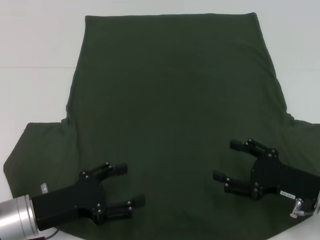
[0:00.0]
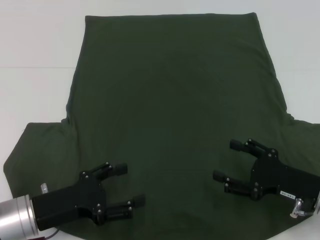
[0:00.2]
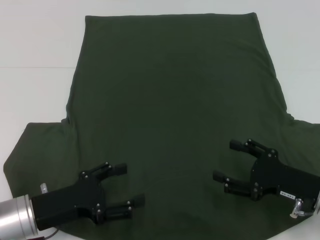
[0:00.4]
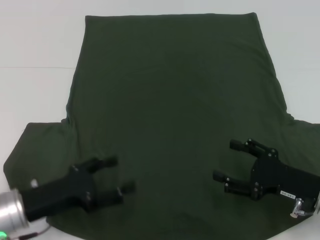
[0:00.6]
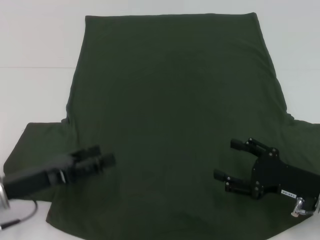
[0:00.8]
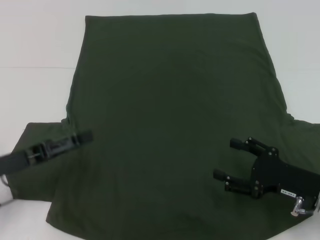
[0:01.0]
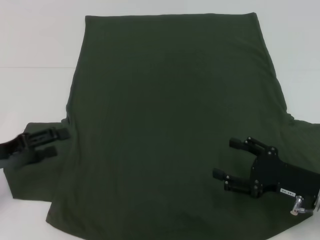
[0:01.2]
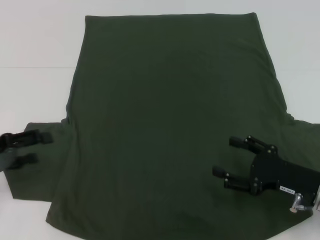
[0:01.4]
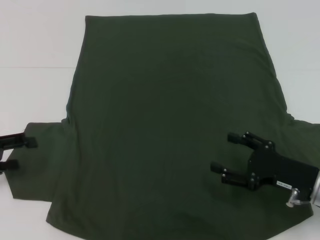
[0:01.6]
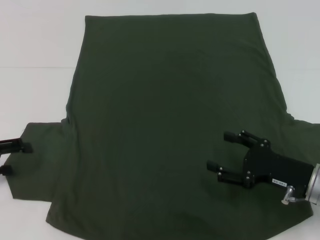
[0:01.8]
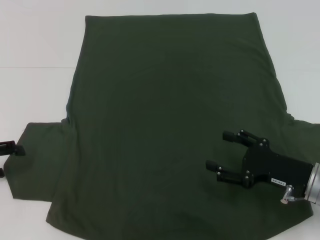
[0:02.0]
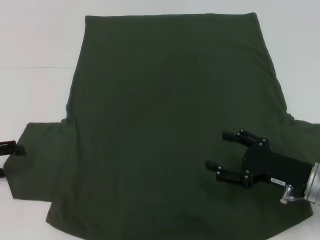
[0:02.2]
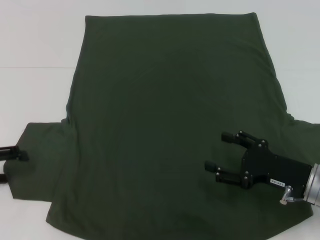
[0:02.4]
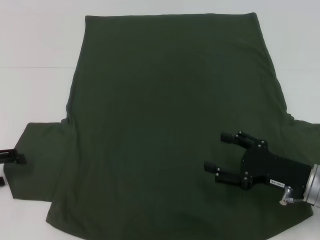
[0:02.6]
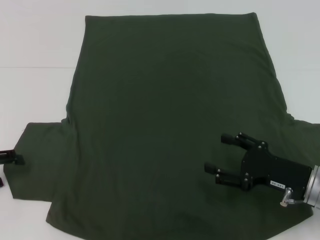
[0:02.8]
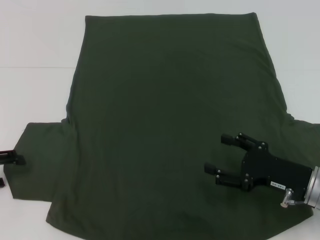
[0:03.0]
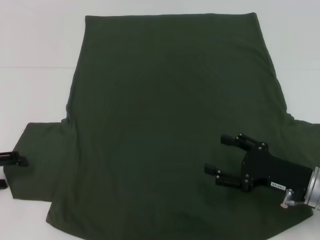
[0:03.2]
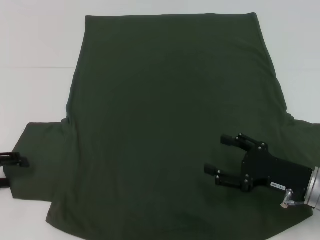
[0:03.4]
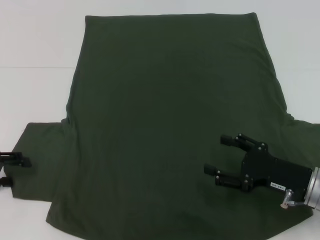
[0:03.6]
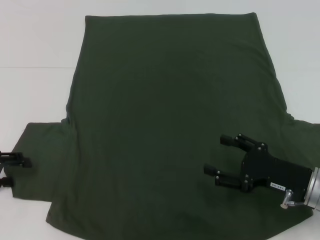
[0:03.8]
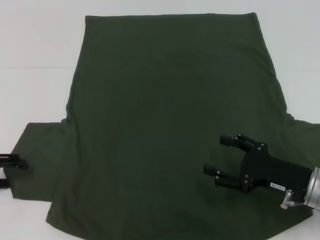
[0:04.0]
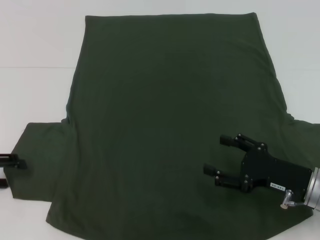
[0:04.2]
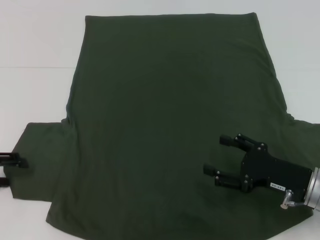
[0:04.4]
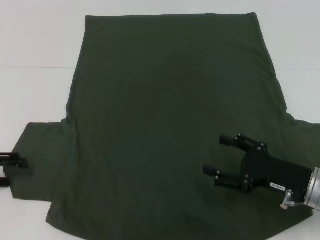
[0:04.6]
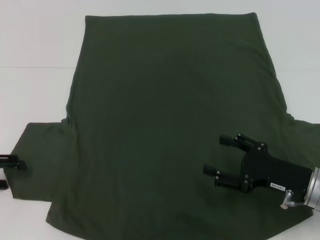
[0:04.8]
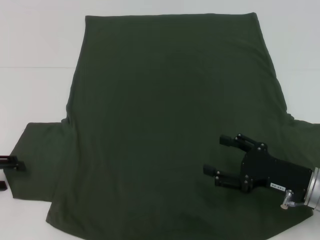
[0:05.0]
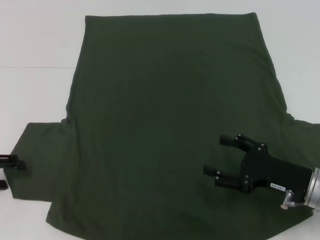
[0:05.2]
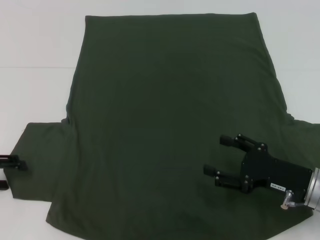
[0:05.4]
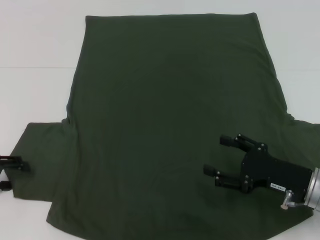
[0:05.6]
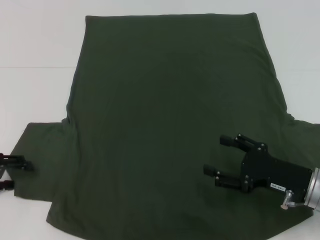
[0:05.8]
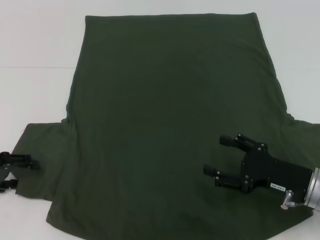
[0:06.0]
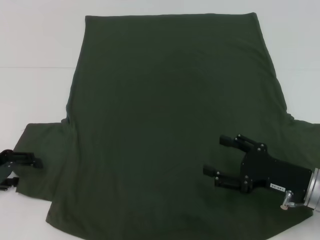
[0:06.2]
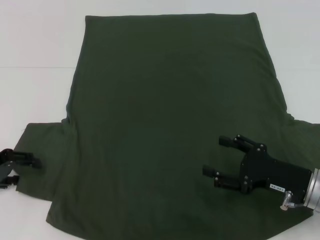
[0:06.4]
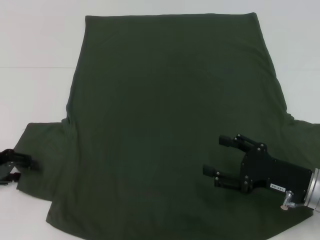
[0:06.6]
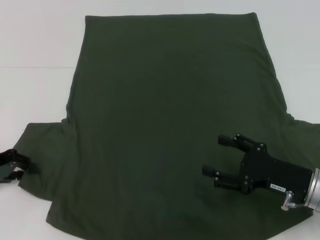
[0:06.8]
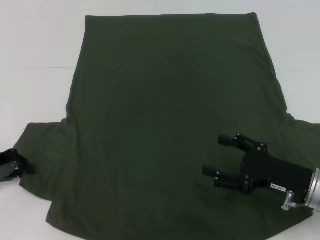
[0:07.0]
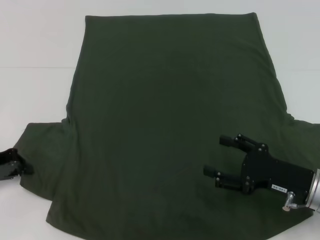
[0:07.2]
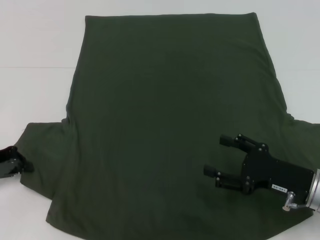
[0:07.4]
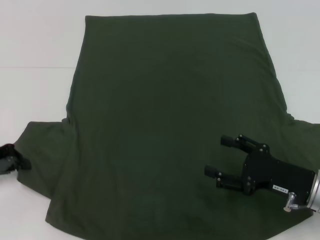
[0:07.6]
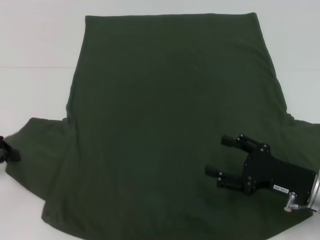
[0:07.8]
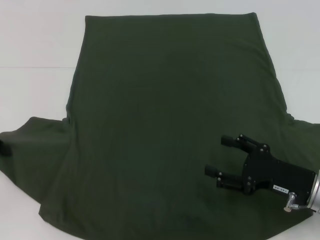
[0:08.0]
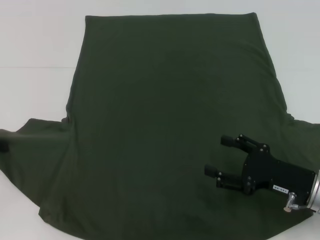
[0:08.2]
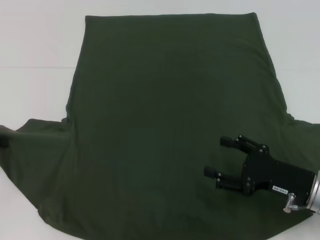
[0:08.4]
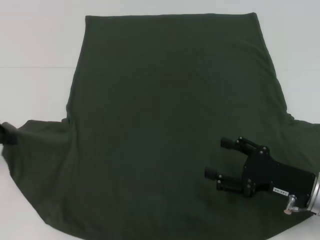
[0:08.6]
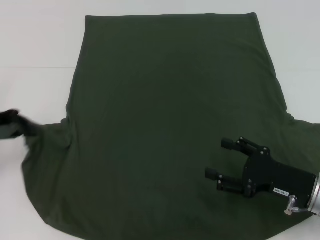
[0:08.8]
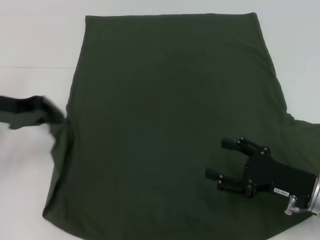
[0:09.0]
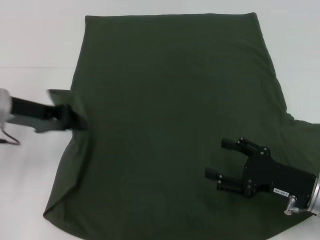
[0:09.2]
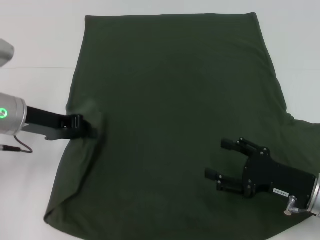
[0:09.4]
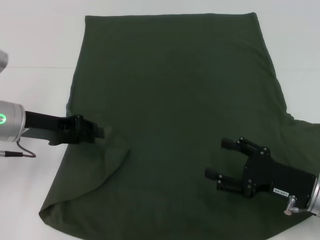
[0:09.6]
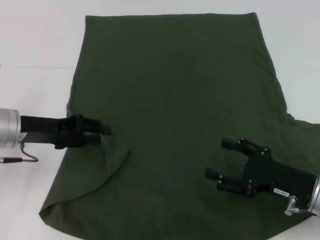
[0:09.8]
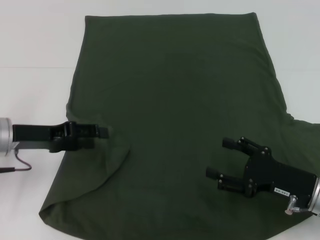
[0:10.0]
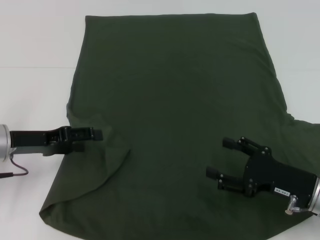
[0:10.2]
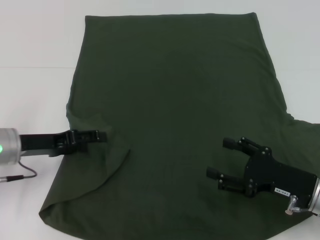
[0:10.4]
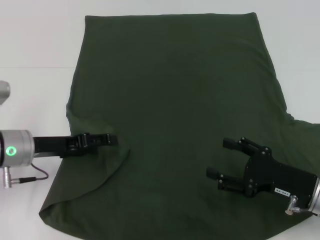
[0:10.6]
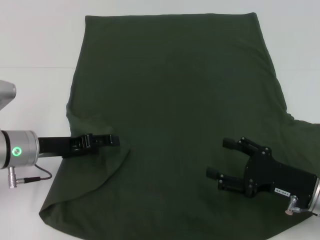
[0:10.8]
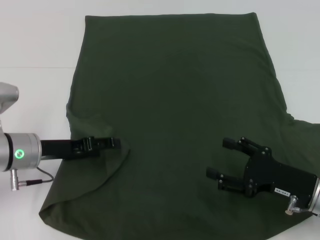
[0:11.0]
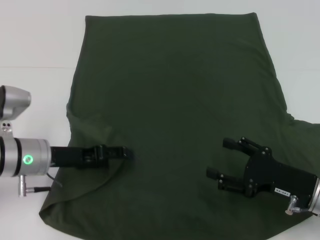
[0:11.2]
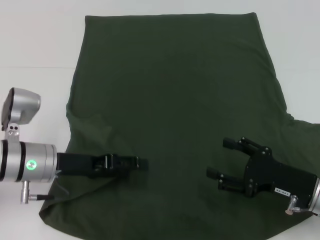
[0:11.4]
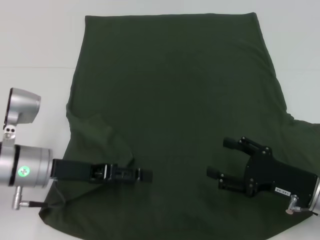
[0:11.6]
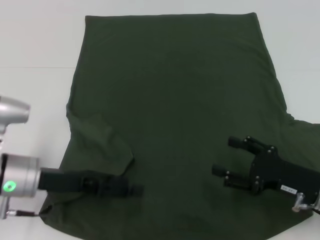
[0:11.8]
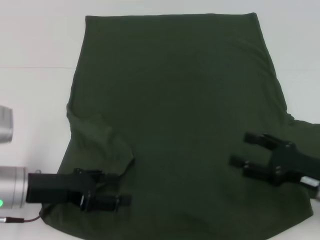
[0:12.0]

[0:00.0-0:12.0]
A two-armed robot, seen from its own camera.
0:00.0 to 0:01.6: The left gripper travels to the left and upward by approximately 15 cm.
0:01.6 to 0:03.0: The grippers stay close to where they were, moving slightly.
0:03.0 to 0:04.4: The two grippers keep their place.
0:06.0 to 0:07.6: The left gripper closes its fingers.
0:07.6 to 0:09.0: The left gripper goes approximately 10 cm upward and to the right.
0:09.0 to 0:10.4: The left gripper travels downward by roughly 10 cm, and opens.
0:10.4 to 0:12.0: The left gripper moves backward, about 5 cm.

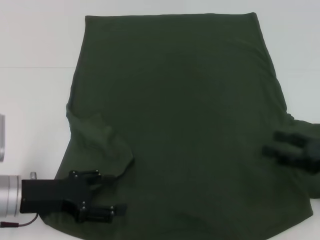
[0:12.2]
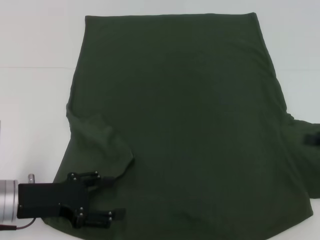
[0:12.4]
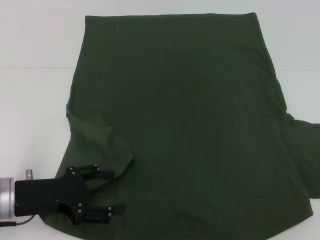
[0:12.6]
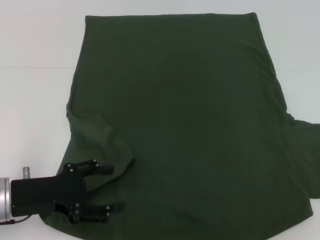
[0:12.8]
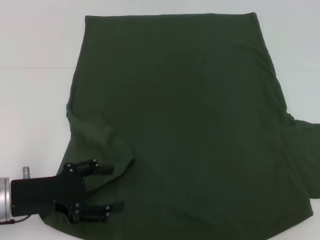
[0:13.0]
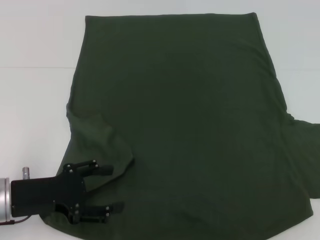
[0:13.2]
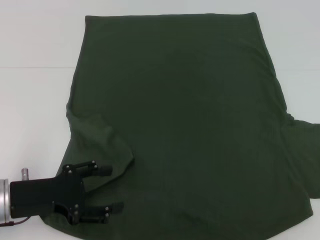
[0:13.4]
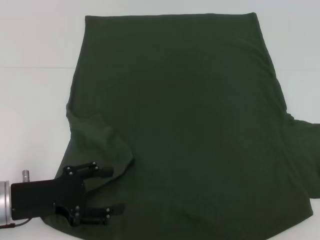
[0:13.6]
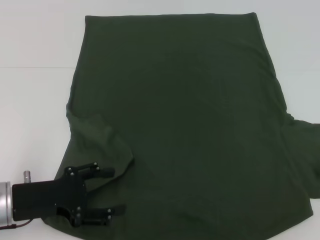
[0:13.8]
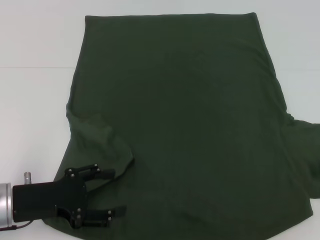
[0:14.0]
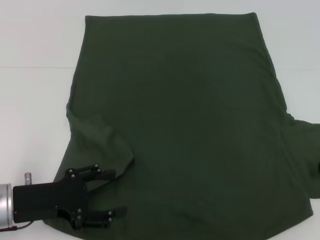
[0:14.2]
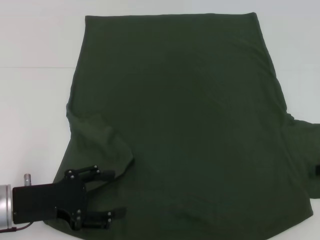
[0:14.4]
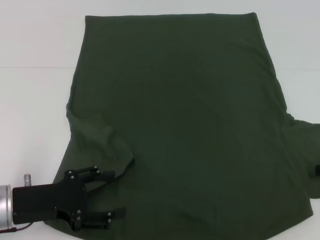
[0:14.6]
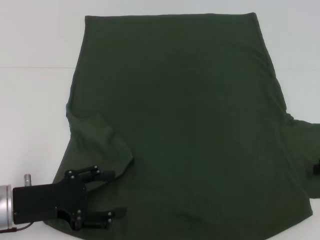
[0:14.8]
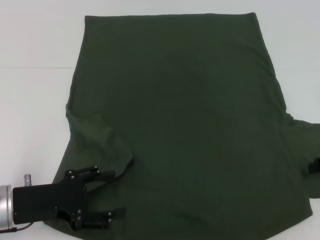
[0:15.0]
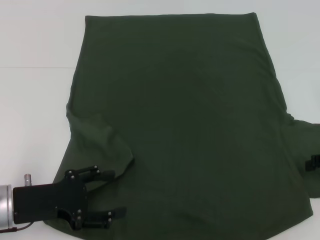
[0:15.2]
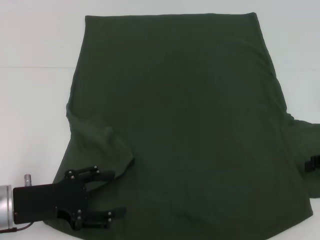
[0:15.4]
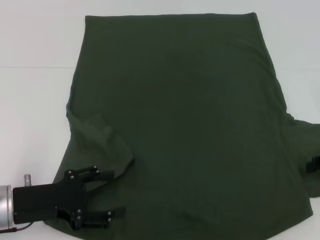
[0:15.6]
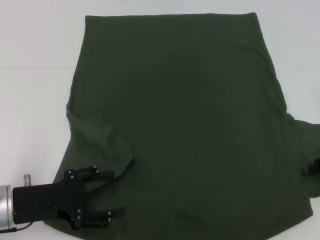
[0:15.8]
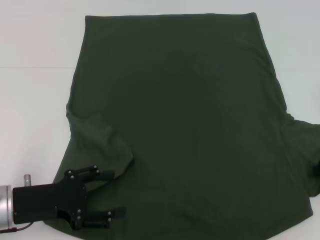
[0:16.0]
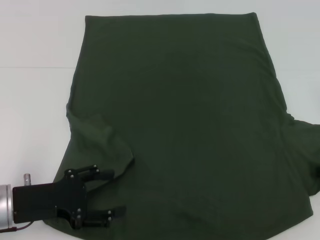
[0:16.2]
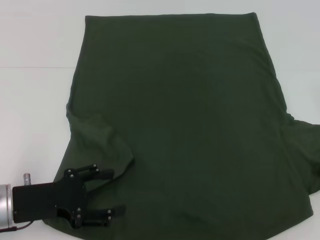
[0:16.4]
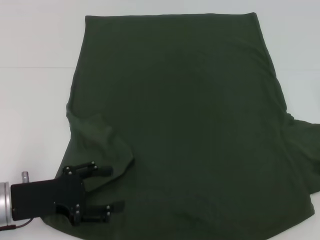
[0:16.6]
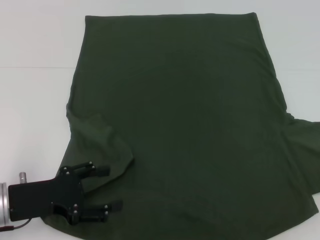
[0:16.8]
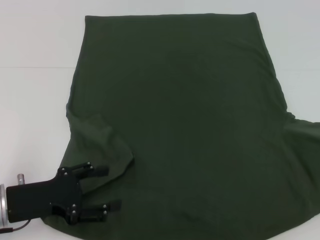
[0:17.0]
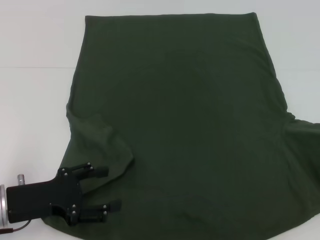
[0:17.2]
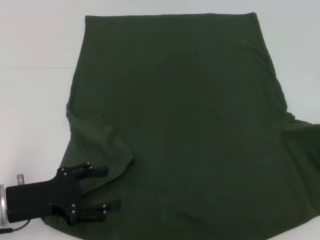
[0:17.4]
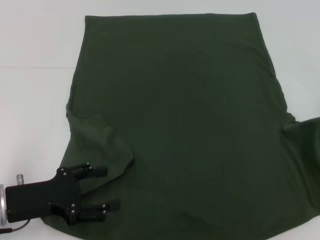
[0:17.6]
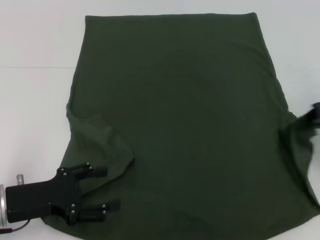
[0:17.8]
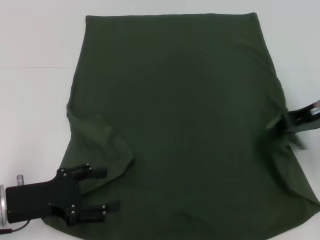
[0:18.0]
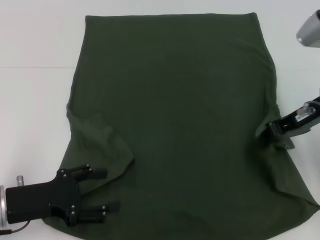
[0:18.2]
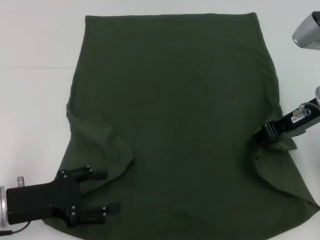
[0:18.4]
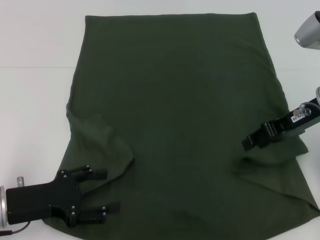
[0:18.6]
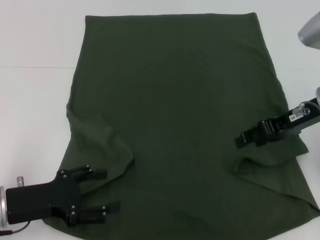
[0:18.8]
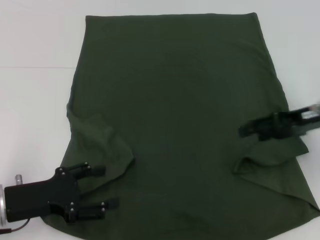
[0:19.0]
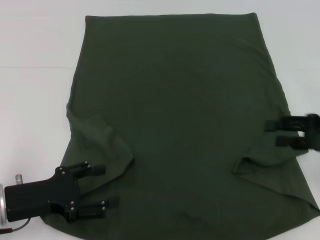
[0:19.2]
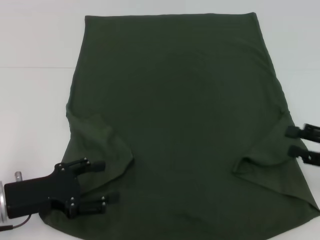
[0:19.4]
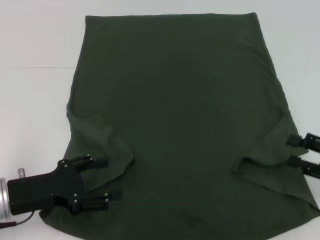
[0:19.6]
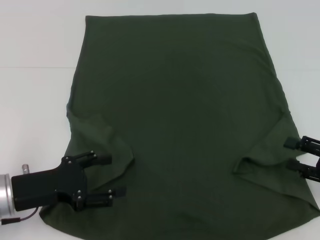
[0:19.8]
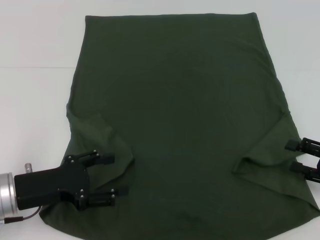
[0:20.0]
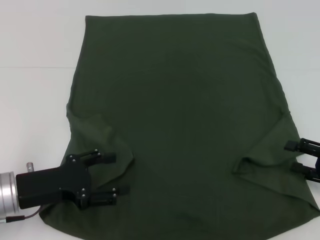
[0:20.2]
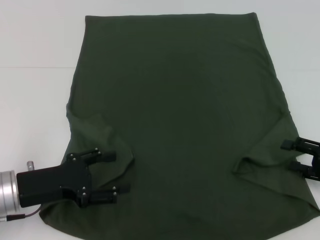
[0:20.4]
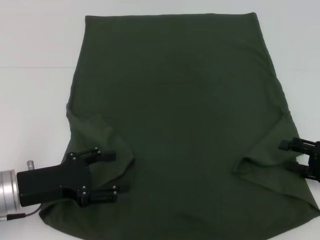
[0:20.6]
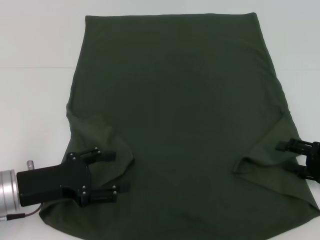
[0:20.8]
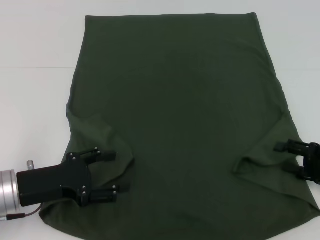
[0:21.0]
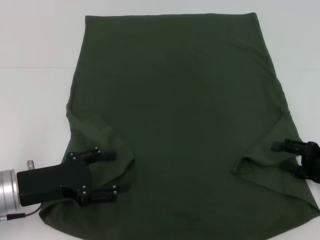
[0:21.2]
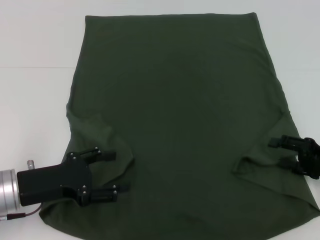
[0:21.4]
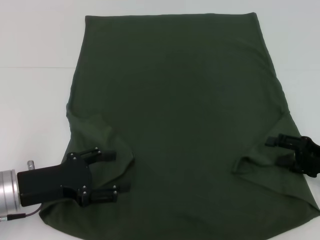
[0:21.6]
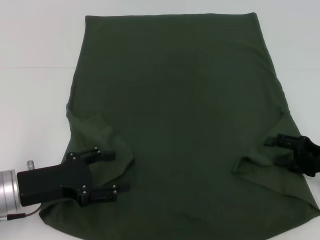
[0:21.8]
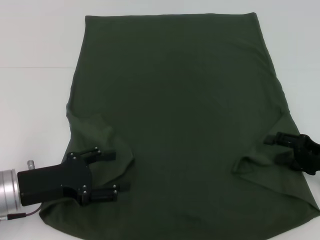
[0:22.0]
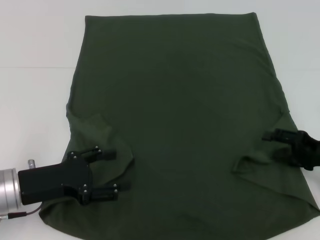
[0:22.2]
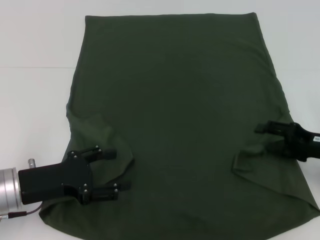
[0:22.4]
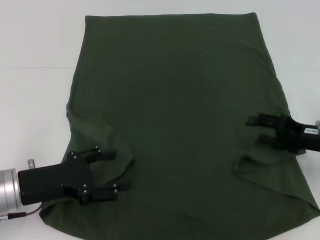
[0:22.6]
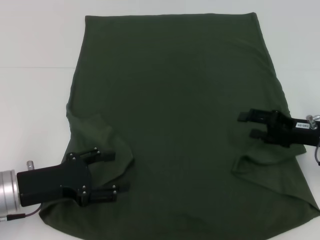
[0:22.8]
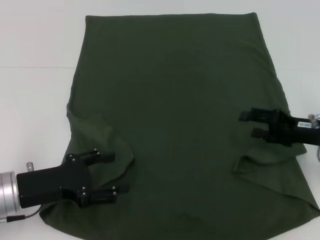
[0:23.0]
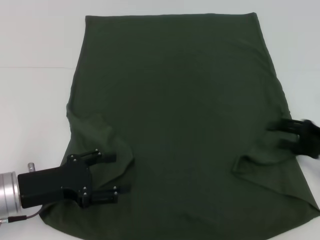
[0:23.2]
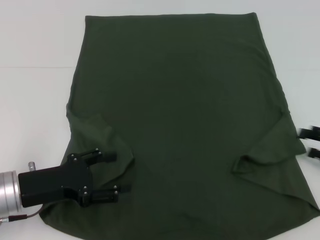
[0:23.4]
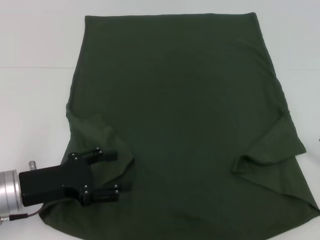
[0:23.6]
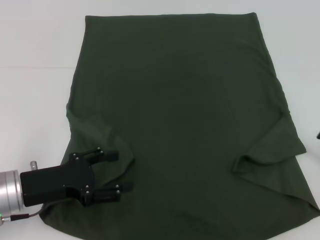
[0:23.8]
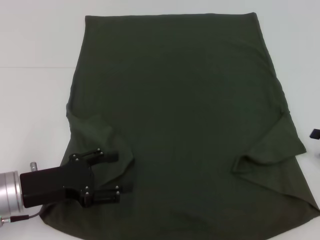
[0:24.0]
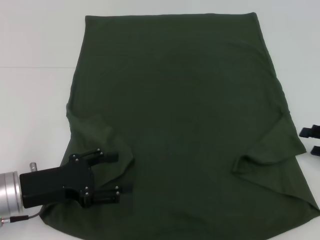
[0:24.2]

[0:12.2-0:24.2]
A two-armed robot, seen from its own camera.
0:12.2 to 0:13.8: The right gripper travels to the right and forward by roughly 10 cm.
0:13.8 to 0:15.2: The grippers move only a little.
0:16.6 to 0:18.2: The right gripper heads to the left and upward, covering some 15 cm.
0:18.2 to 0:19.8: The right gripper shifts some 20 cm downward, backward and to the right, and opens its fingers.
0:19.8 to 0:21.2: The grippers move only a little.
0:21.2 to 0:22.6: The right gripper ends up about 5 cm from where it was.
0:22.6 to 0:24.2: The right gripper travels to the right by about 10 cm.
